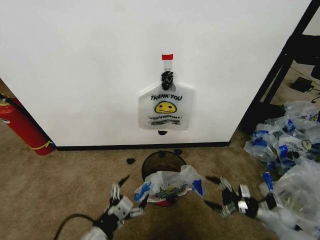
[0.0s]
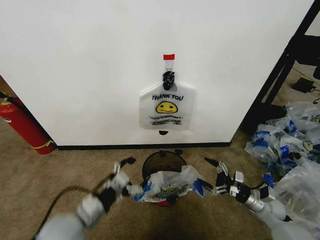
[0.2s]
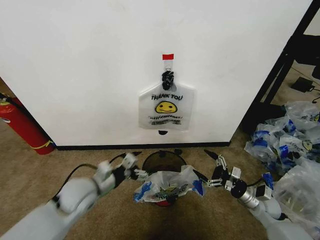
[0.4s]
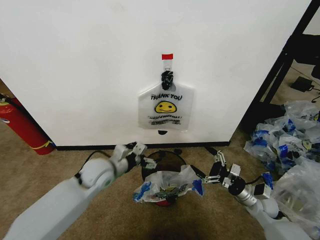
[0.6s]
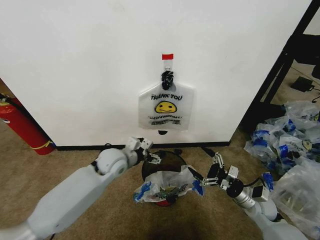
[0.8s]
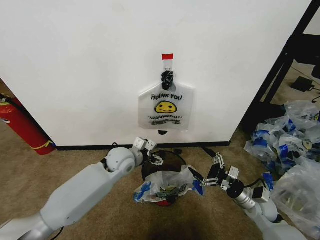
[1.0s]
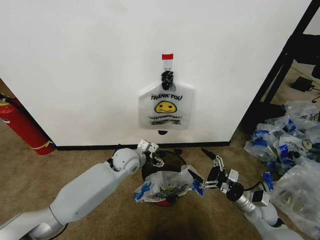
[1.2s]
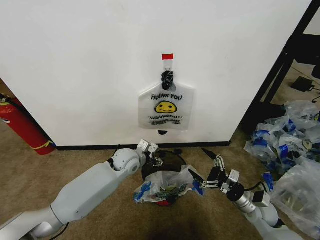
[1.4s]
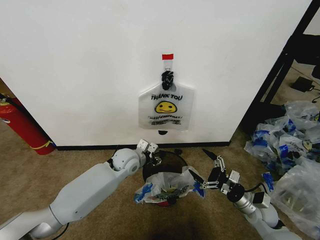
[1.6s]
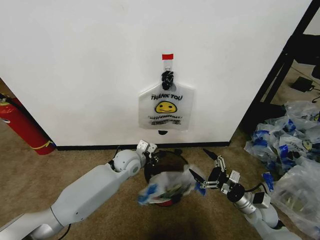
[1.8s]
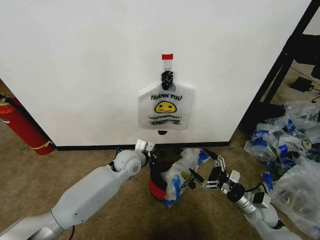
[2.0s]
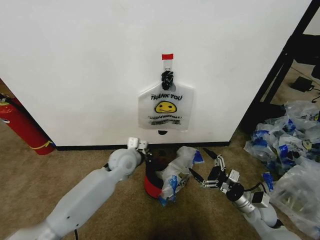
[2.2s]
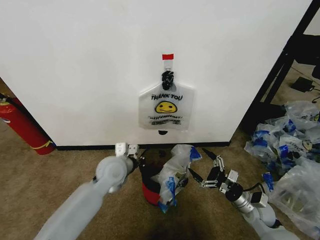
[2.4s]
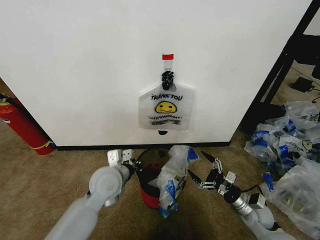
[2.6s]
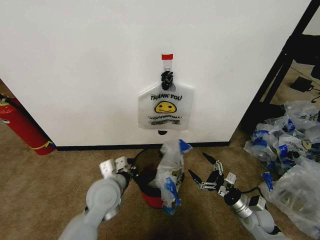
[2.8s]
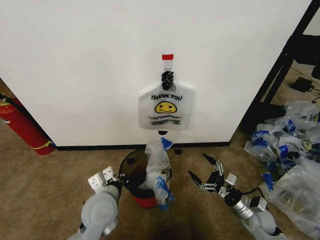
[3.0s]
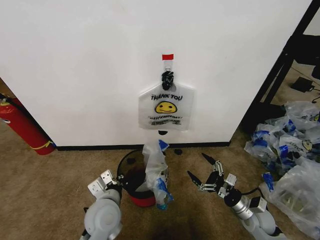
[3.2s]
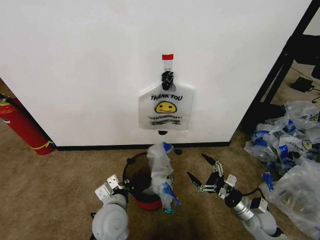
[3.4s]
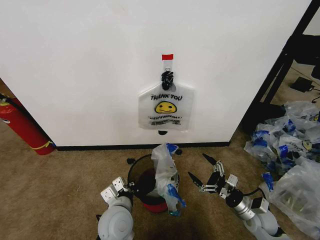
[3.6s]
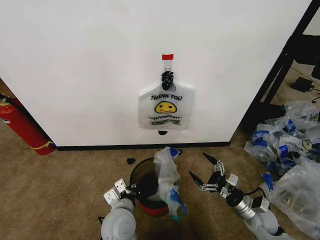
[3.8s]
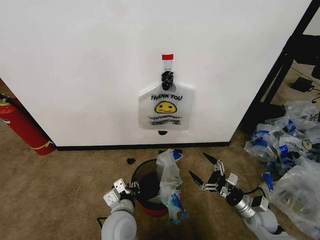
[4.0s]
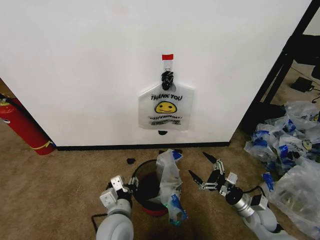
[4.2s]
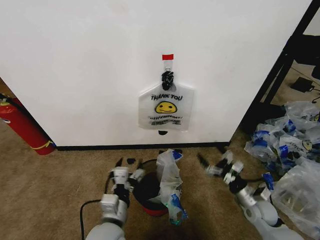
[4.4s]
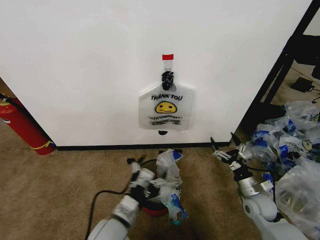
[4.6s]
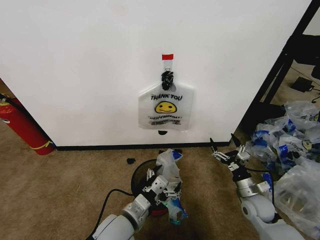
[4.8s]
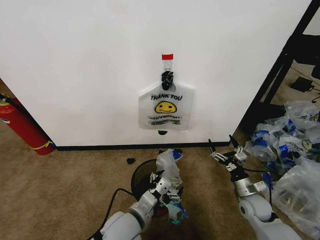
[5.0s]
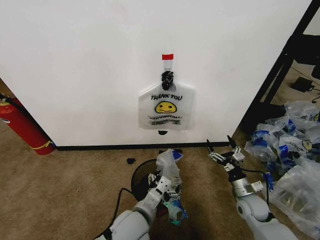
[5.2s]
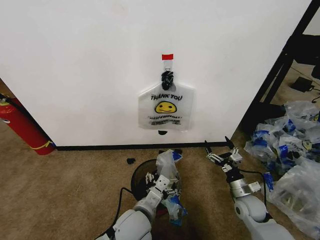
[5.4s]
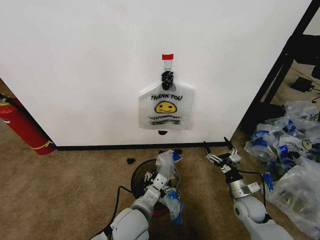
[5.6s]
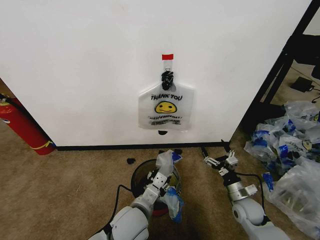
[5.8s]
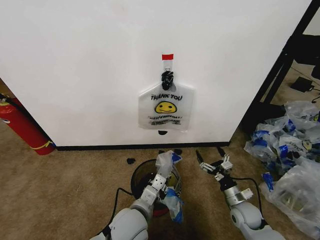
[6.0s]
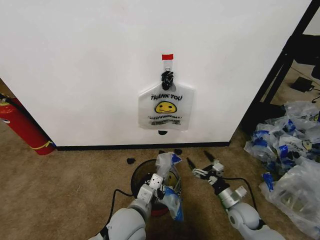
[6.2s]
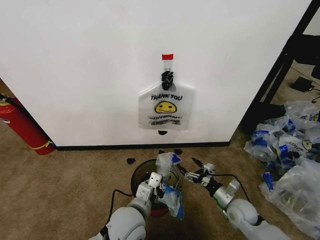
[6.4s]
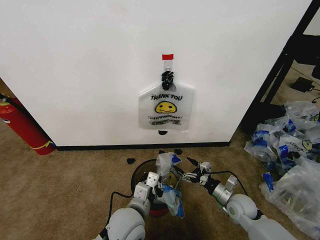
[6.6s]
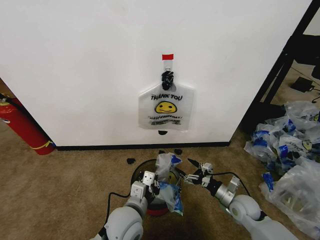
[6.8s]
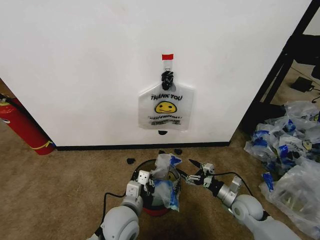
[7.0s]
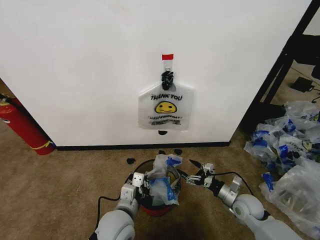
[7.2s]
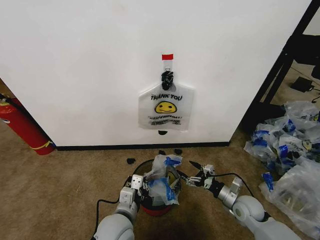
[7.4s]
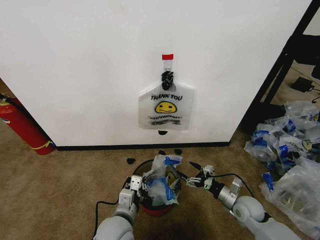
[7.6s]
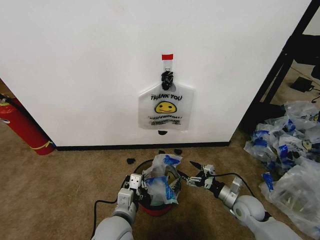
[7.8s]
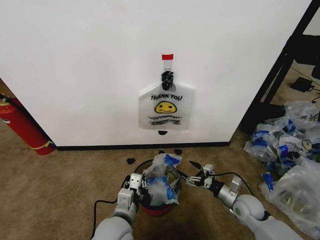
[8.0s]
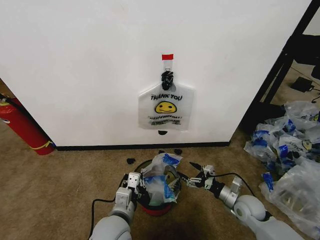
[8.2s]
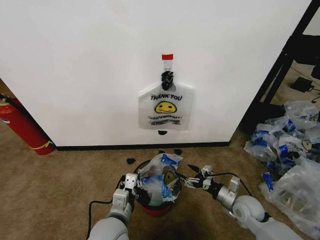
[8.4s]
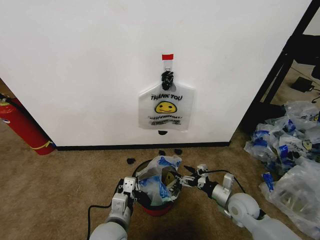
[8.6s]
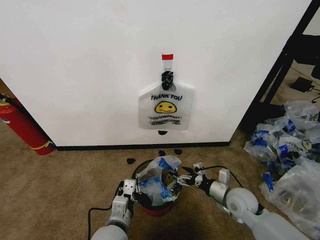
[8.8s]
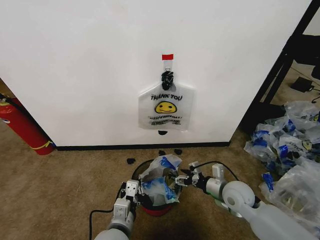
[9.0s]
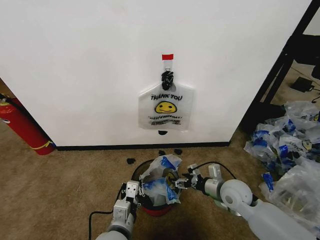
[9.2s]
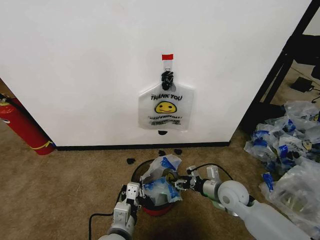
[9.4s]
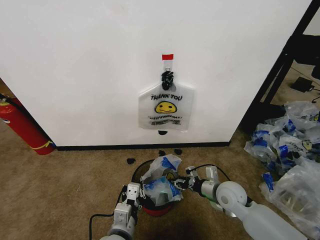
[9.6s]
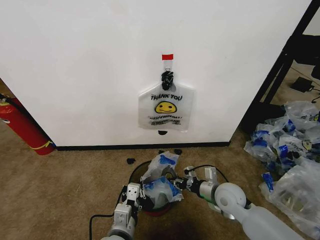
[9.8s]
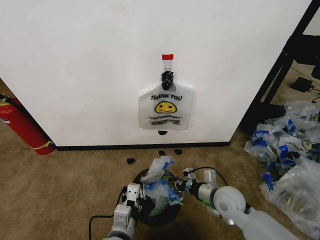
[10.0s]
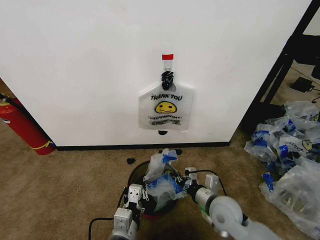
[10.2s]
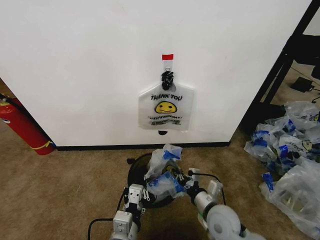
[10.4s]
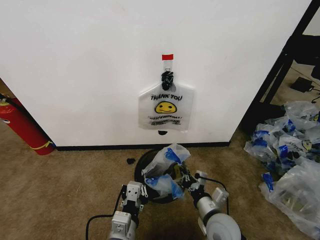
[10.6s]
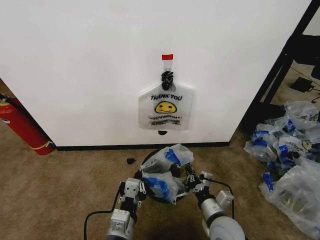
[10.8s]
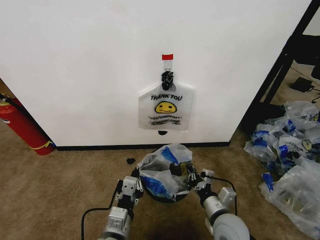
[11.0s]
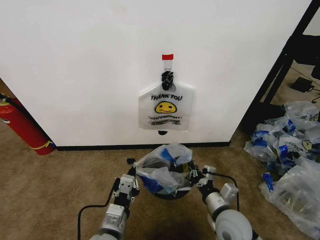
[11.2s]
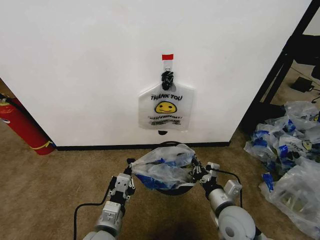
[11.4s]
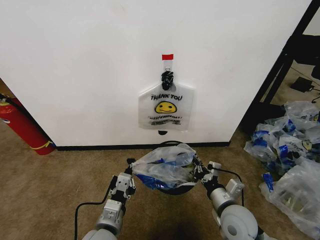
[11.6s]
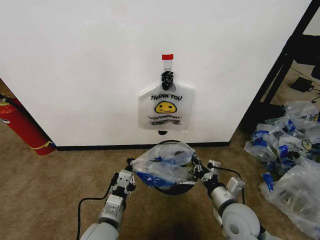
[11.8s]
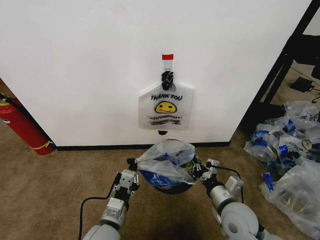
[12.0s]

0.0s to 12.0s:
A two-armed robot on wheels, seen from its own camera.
Task of the whole recording: Pick up the garbage bag from the wall and place it over the trash bin.
0.0s to 1.6s: The right gripper heads to the left, covering some 10 cm, while the left gripper is displaced forward by approximately 30 cm, and closes its fingers.
1.6s to 3.0s: The left gripper is displaced backward by some 15 cm, and closes its fingers.
3.0s to 4.4s: The left gripper shifts roughly 10 cm backward, and opens its fingers.
4.4s to 6.0s: The right gripper ends up some 5 cm from where it was, while the left gripper travels to the right by some 5 cm, and closes.
7.6s to 9.0s: The right gripper moves upward and to the left, approximately 10 cm.
9.0s to 10.4s: The right gripper is displaced backward and to the left by some 10 cm, and closes its fingers.
10.4s to 12.0s: The right gripper changes place by about 5 cm. Meanwhile the left gripper is displaced forward by about 5 cm.

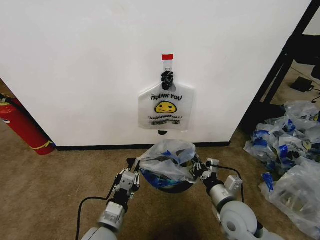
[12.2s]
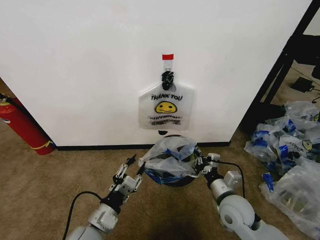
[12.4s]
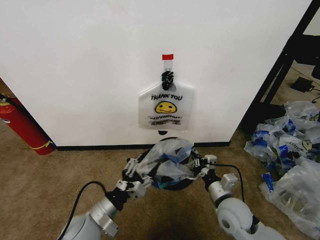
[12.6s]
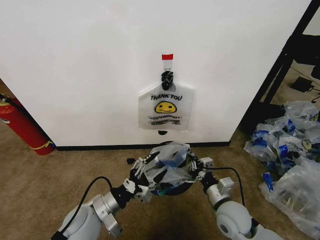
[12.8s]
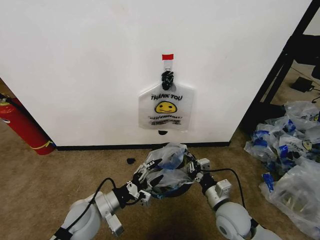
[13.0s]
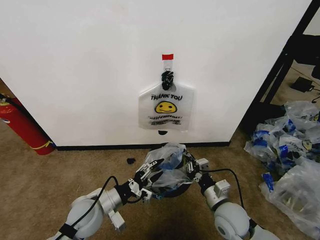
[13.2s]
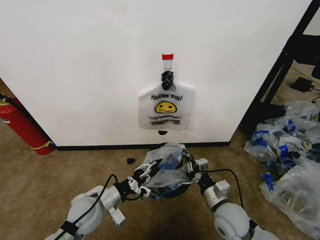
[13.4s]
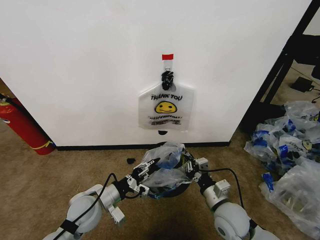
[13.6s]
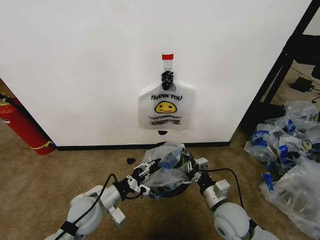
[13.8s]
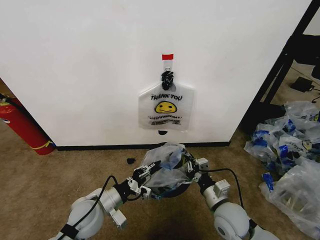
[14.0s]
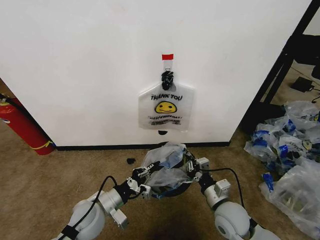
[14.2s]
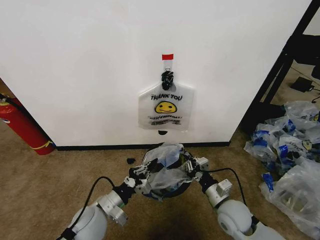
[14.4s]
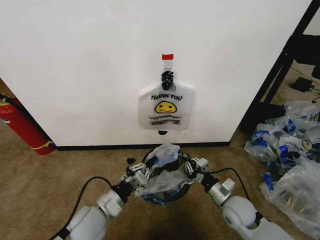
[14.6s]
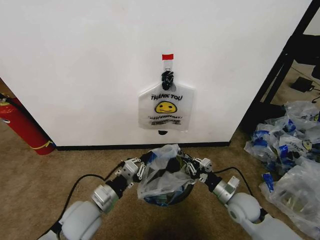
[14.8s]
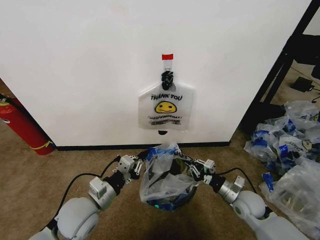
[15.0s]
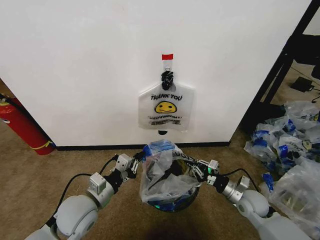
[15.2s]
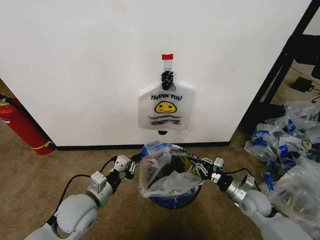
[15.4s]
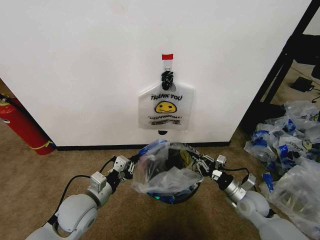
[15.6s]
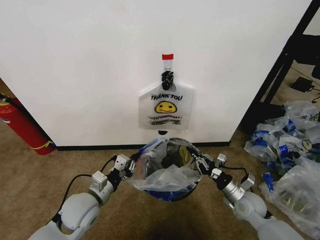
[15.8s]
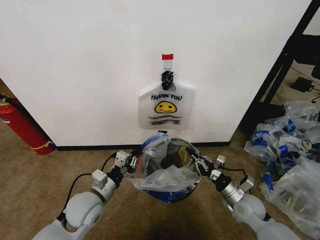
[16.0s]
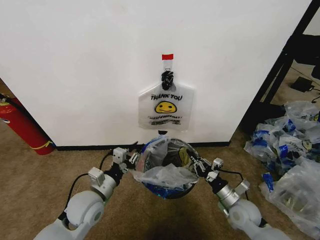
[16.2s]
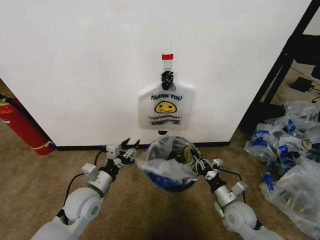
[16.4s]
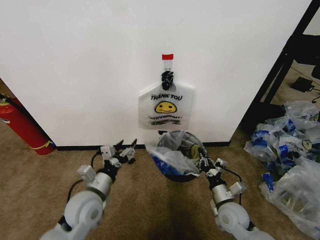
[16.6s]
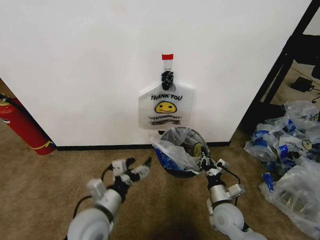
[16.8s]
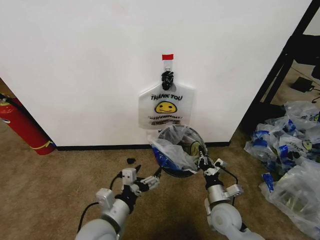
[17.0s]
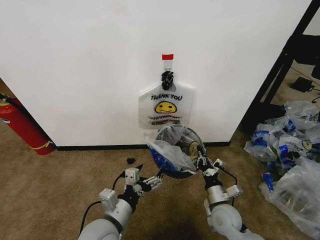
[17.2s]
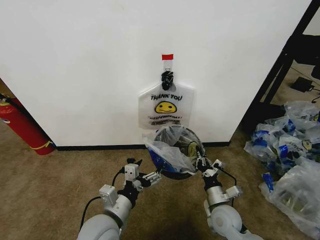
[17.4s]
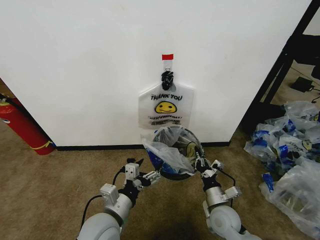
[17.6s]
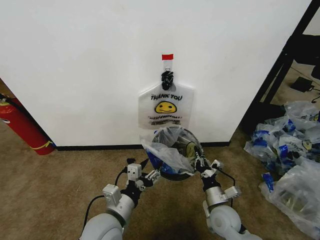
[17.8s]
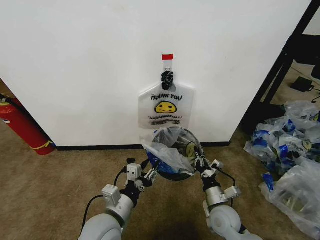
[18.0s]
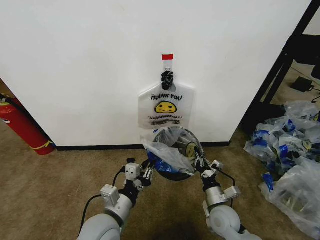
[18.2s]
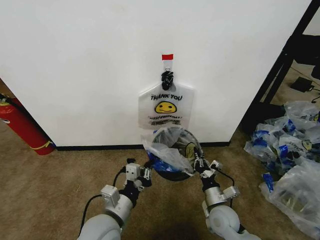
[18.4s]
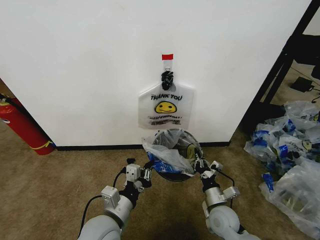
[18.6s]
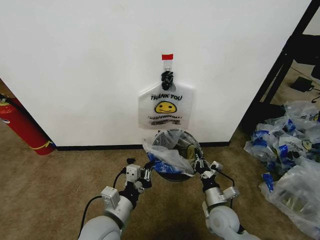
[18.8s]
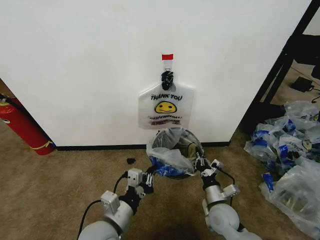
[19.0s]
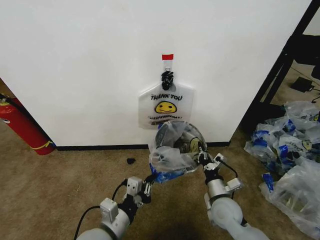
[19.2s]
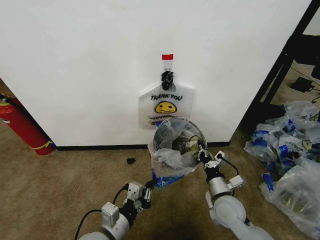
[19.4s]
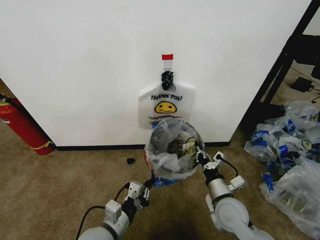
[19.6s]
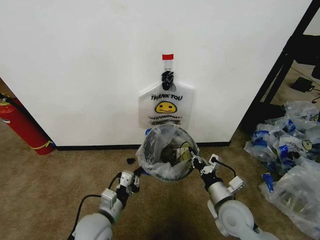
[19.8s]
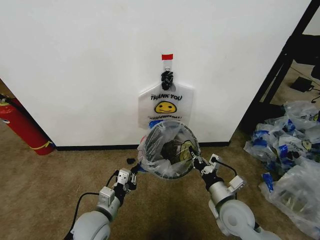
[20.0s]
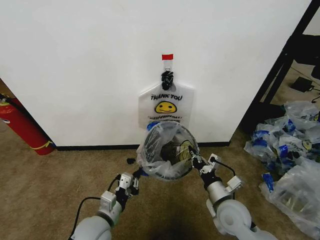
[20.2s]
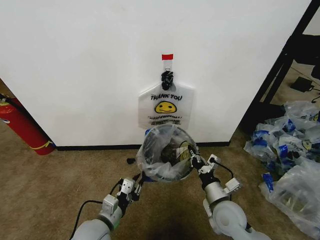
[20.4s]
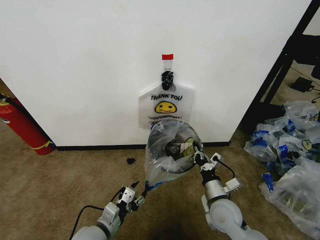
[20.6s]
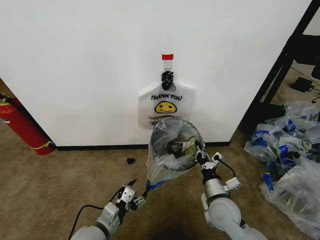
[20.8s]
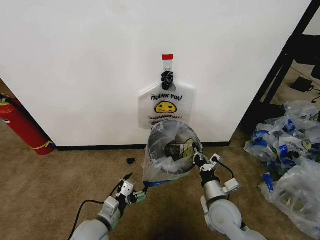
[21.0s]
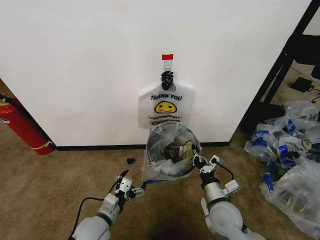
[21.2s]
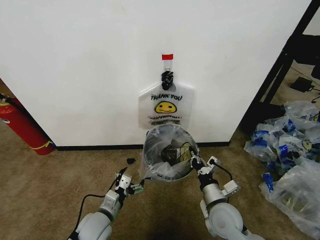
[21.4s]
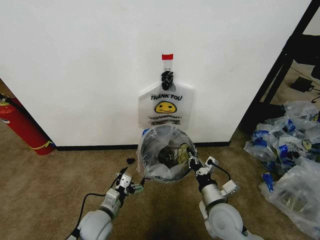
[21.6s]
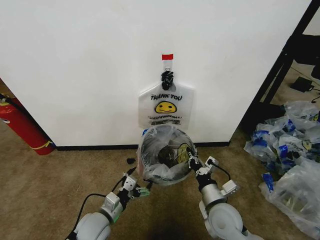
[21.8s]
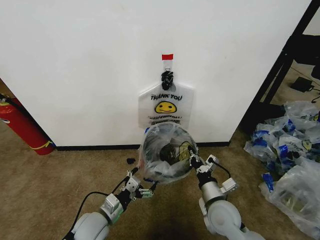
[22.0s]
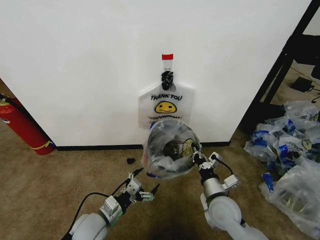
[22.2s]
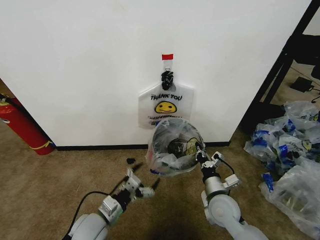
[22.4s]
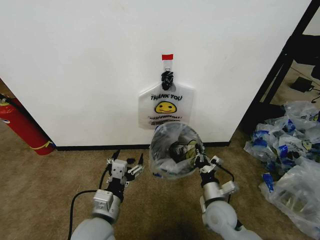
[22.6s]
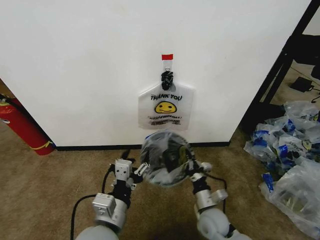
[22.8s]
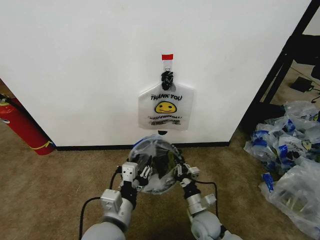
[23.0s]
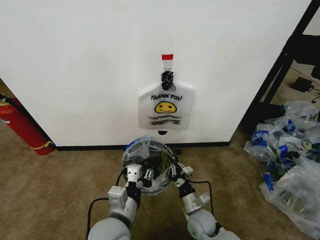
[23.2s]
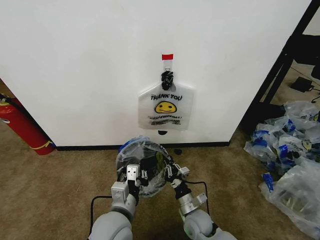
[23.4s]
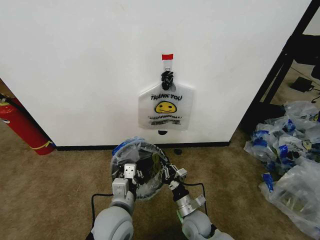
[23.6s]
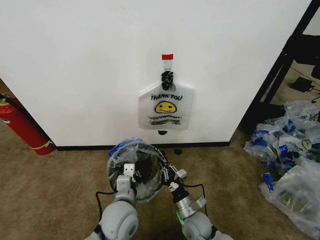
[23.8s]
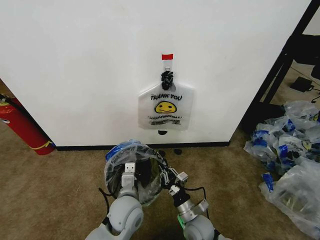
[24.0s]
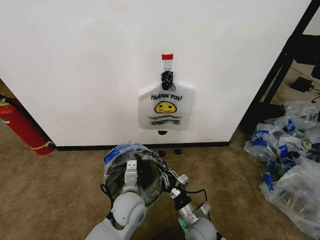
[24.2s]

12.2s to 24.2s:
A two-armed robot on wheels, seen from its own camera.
Task of the whole recording: Pick up the garbage bag from the wall and place it over the trash bin.
12.2s to 13.8s: The left gripper goes some 10 cm forward and to the left, and opens, then closes again.
13.8s to 15.2s: The right gripper goes approximately 15 cm to the right and forward.
15.2s to 16.6s: The left gripper opens its fingers, while the right gripper is displaced to the left by about 10 cm.
16.6s to 18.2s: The left gripper travels to the right and backward by some 10 cm, and closes its fingers.
18.2s to 19.8s: The left gripper heads downward, covering approximately 5 cm. Meanwhile the right gripper goes approximately 10 cm upward.
19.8s to 21.2s: The left gripper opens.
21.2s to 22.6s: The left gripper travels upward by some 10 cm.
22.6s to 24.2s: The left gripper is displaced forward and to the right by about 10 cm, and closes up. The right gripper is displaced downward and to the left by approximately 10 cm.
